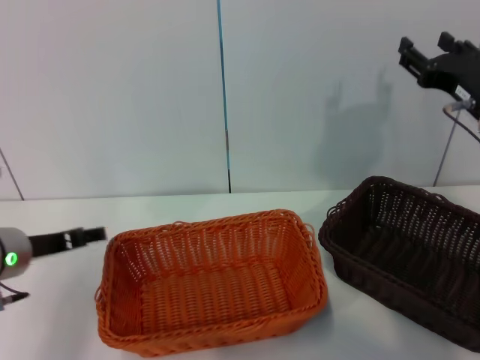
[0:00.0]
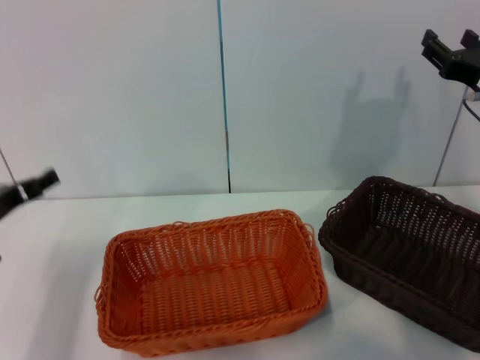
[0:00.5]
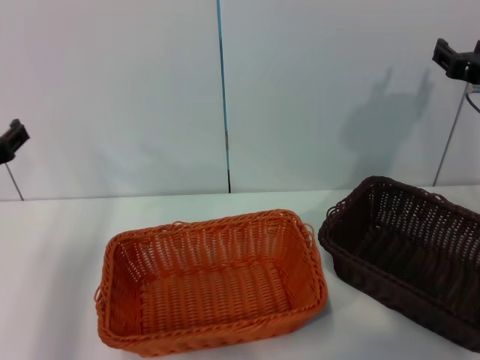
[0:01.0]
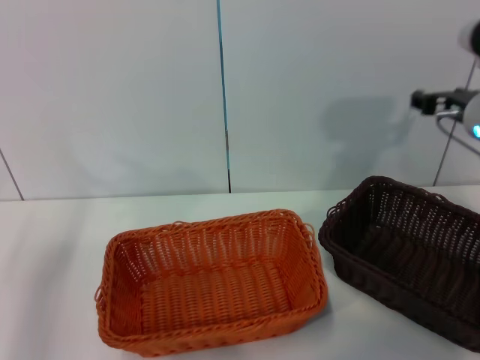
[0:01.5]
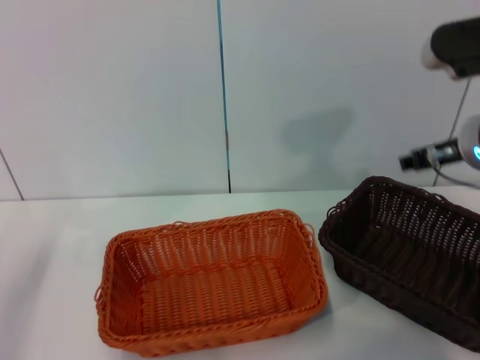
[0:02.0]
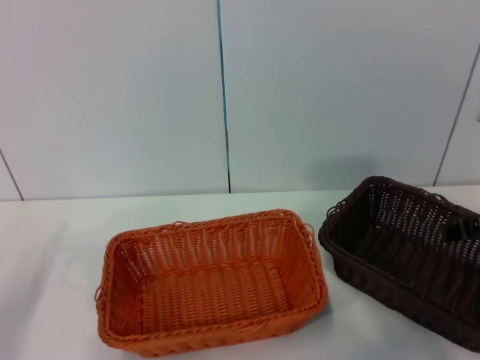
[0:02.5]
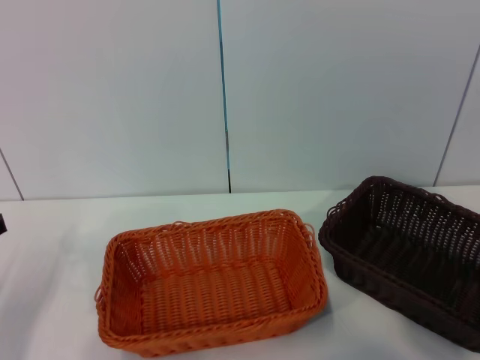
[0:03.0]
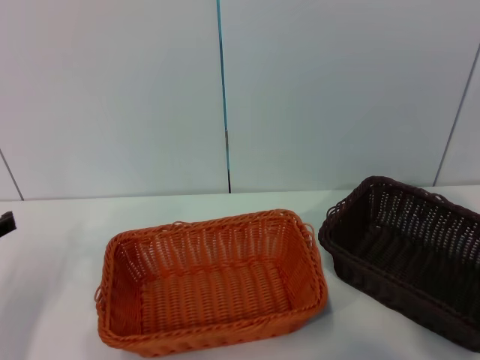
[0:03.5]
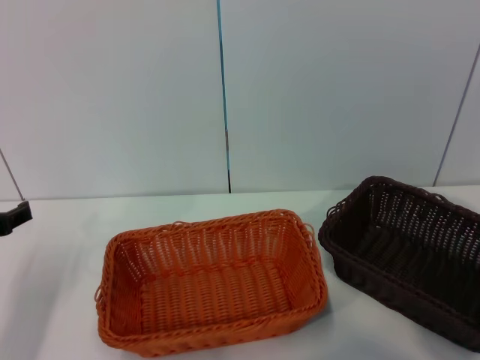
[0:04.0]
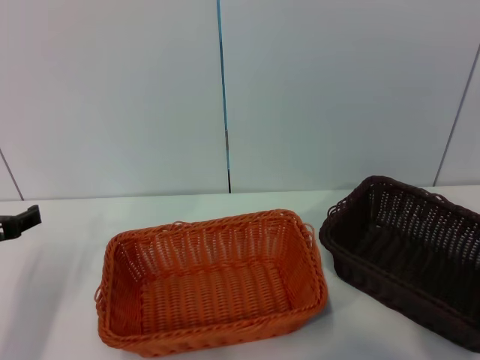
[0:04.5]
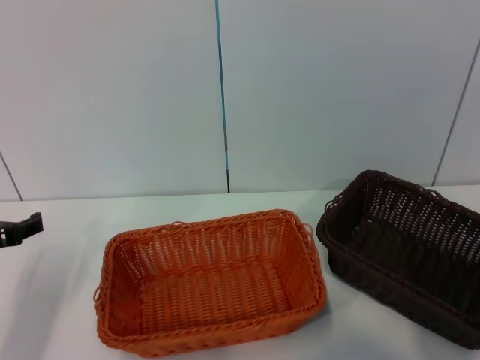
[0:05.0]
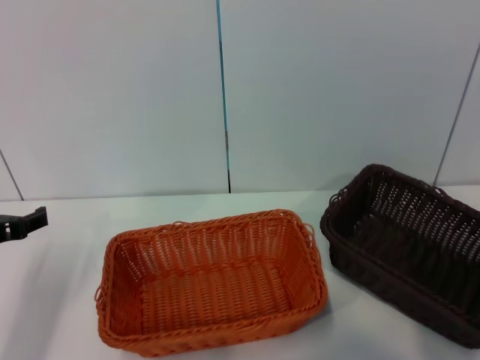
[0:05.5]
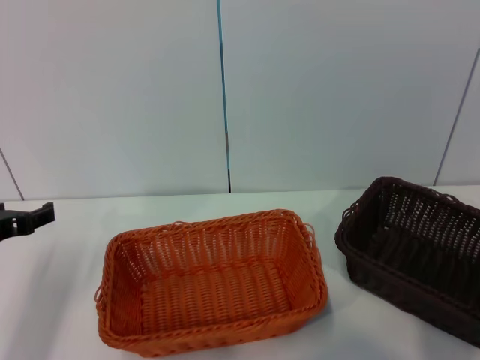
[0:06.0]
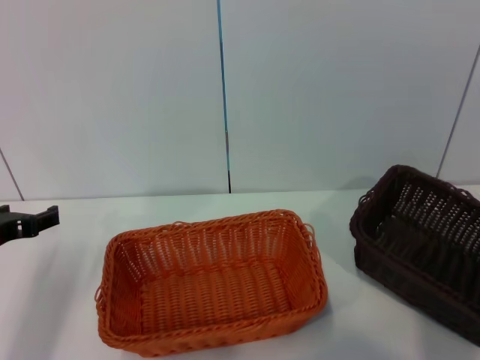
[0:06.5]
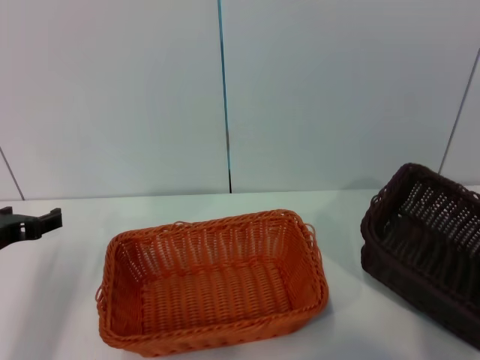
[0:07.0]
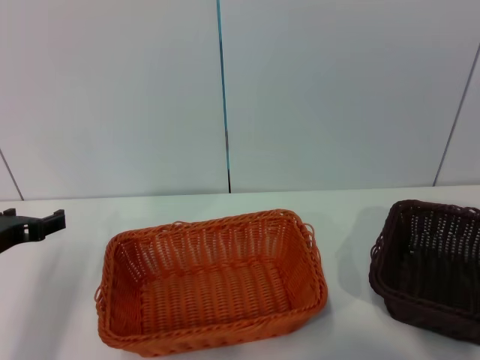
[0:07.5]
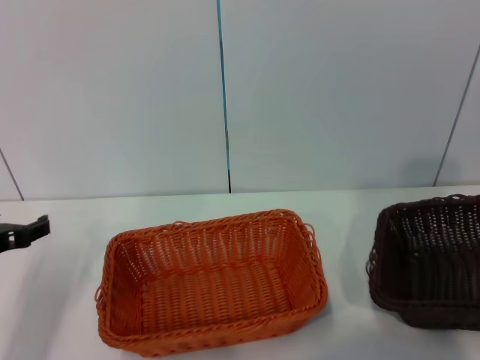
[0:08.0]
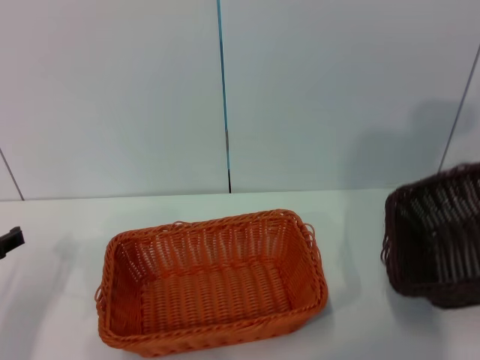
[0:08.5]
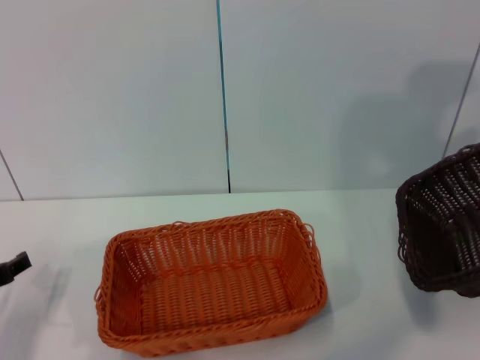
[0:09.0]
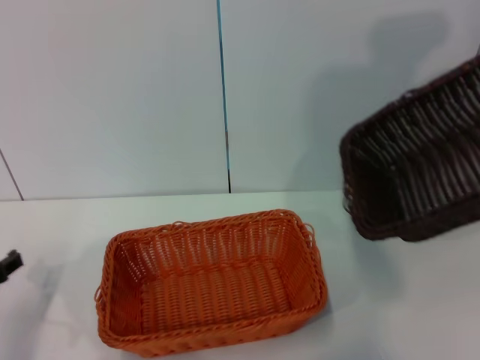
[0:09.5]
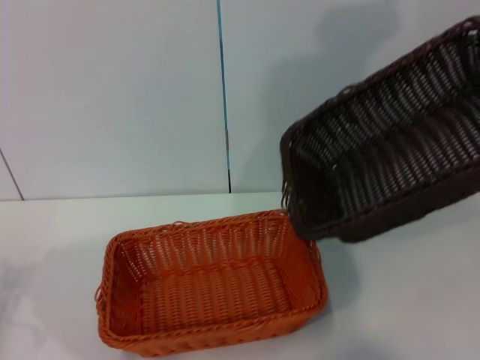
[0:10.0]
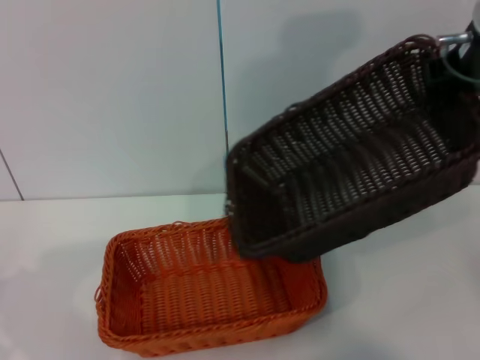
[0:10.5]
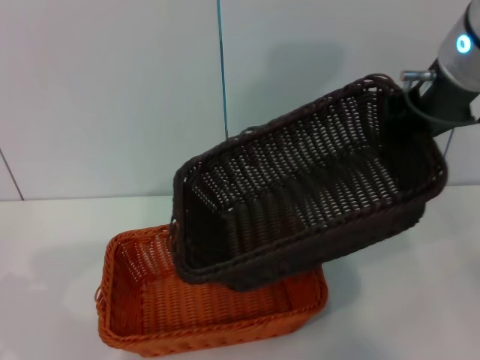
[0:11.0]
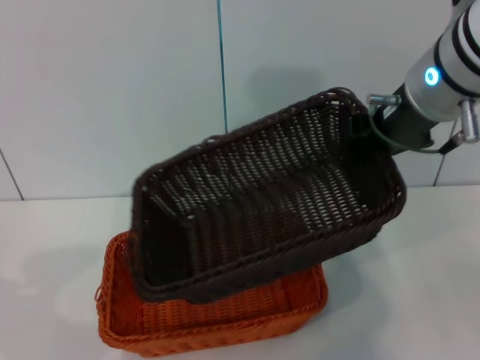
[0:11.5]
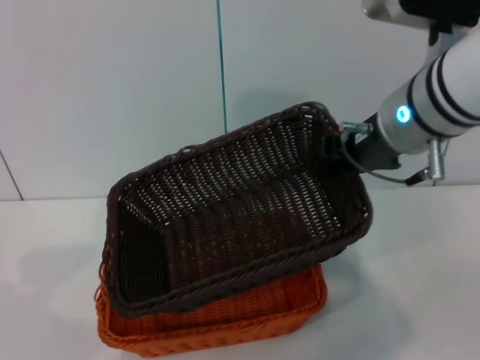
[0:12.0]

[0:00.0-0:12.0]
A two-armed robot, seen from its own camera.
Step, 0:00.0 to 0:07.5: Pick up the dark basket with the right gripper.
0:00.0 to 0:02.0: The left gripper travels to the left by some 10 cm, while the right gripper shifts by approximately 5 cm.
0:02.0 to 0:04.0: The right gripper moves to the right and downward, approximately 15 cm.
0:04.0 to 0:06.0: The right gripper closes its fingers.
0:06.0 to 0:08.0: The right gripper heads upward, covering roughly 10 cm.
0:08.0 to 0:10.0: The right gripper heads upward and to the left, covering approximately 20 cm. The left gripper goes some 5 cm to the left.
0:10.0 to 0:12.0: The right gripper moves to the left and downward, some 10 cm, while the left gripper shifts some 5 cm to the left.

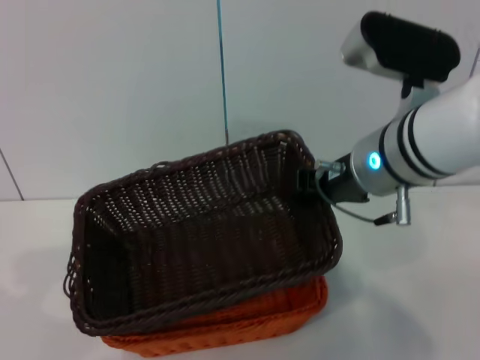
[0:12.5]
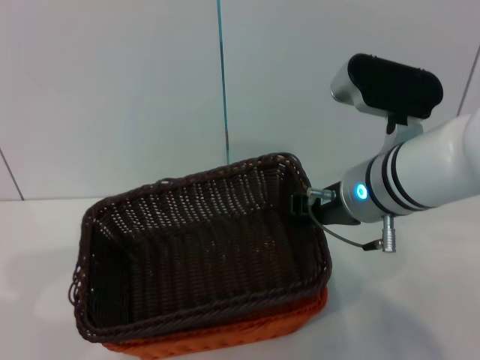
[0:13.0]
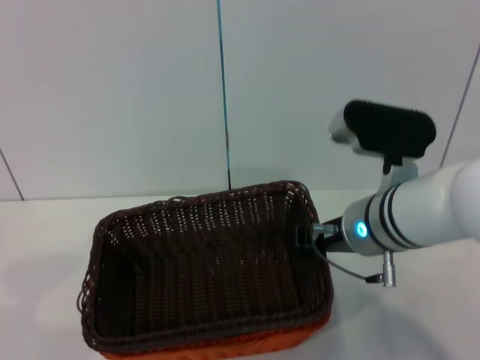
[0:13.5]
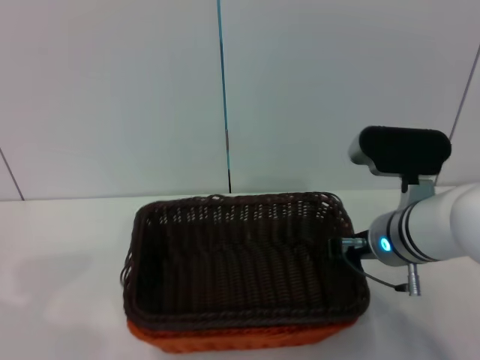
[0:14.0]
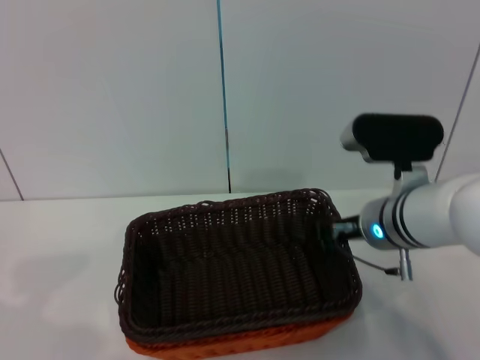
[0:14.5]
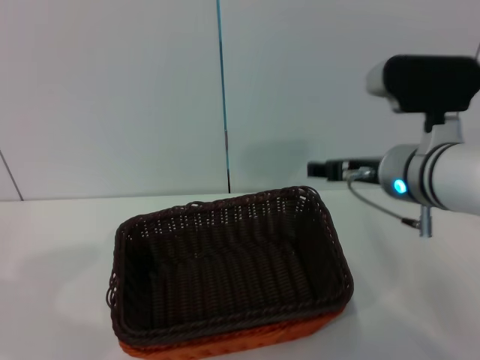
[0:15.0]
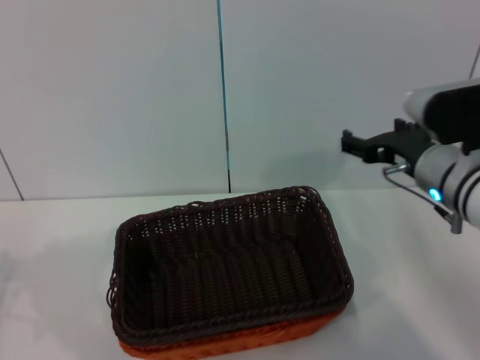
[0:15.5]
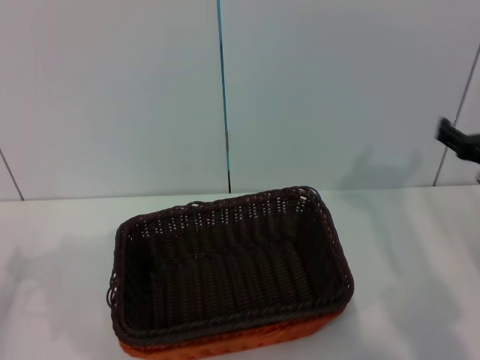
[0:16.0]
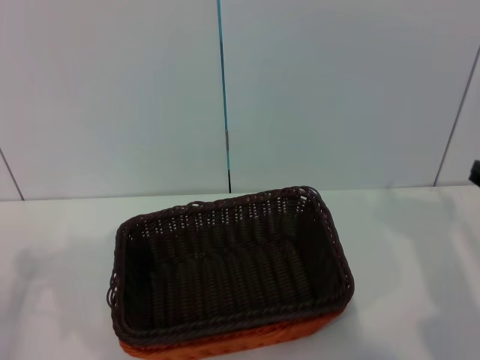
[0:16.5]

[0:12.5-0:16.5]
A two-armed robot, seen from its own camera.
Step, 0:12.5 to 0:14.5: Place the dark basket on the light basket with the right gripper.
0:12.5 to 0:14.5: The right gripper shifts about 10 cm downward.
0:14.5 to 0:16.5: The left gripper moves to the right, approximately 10 cm, while the right gripper shifts approximately 20 cm to the right, and opens up.
